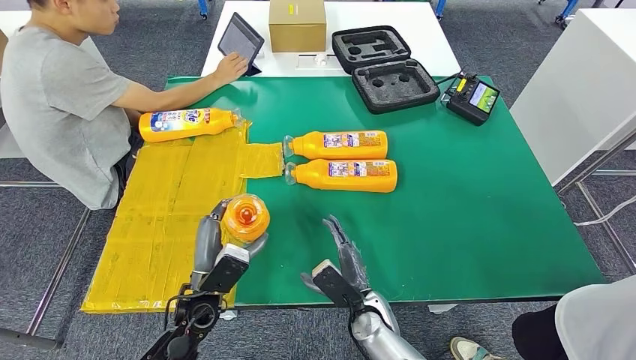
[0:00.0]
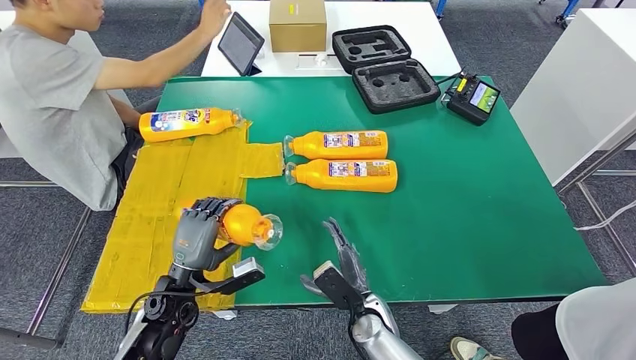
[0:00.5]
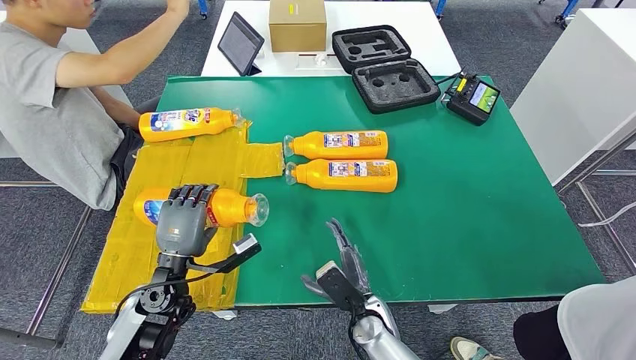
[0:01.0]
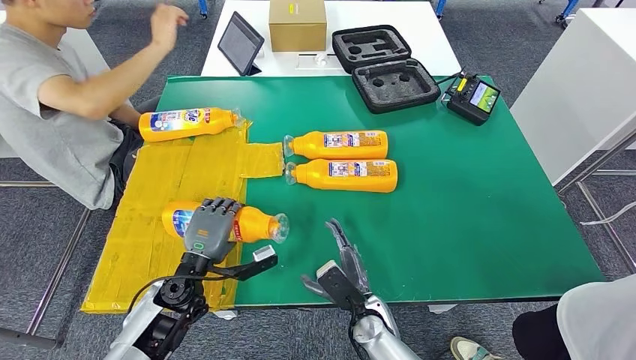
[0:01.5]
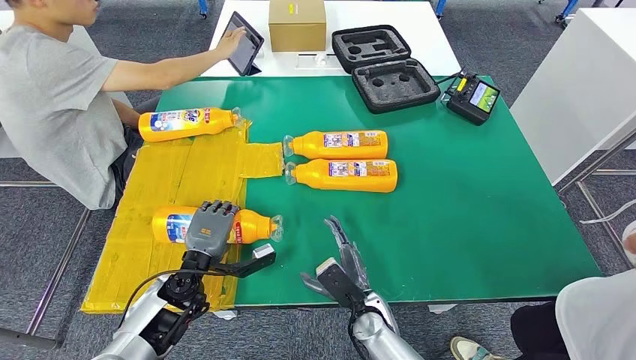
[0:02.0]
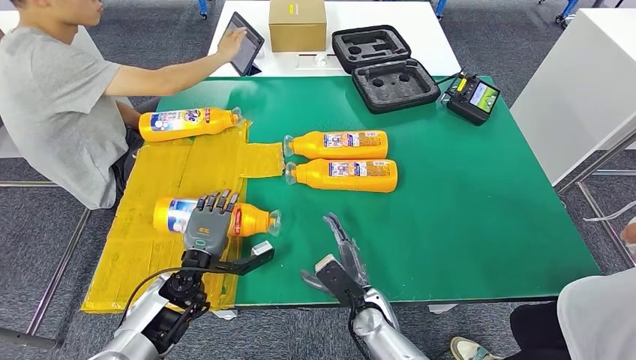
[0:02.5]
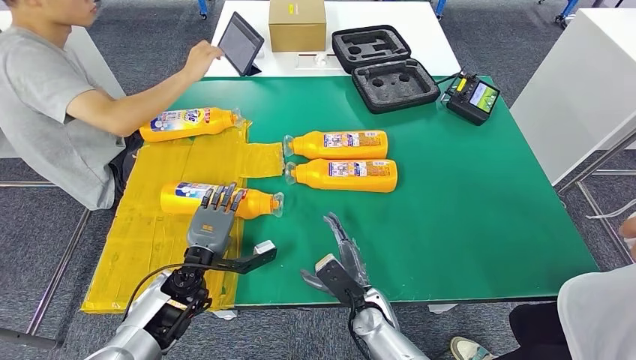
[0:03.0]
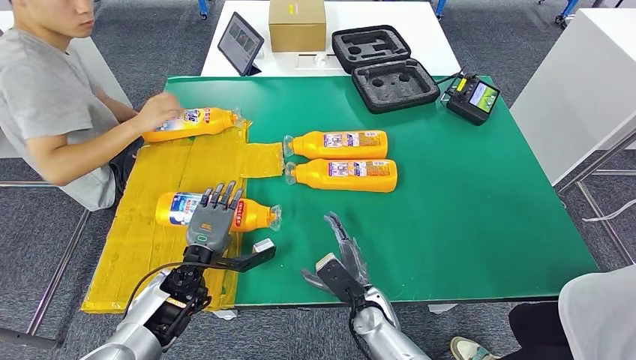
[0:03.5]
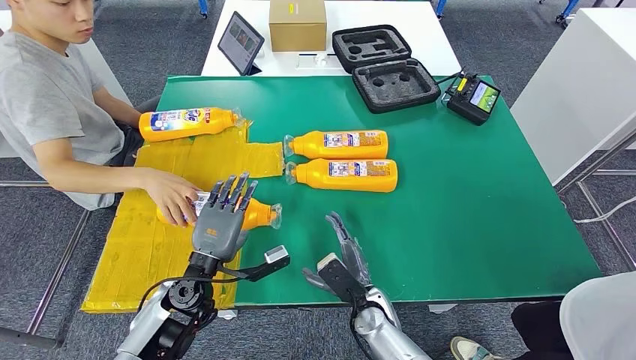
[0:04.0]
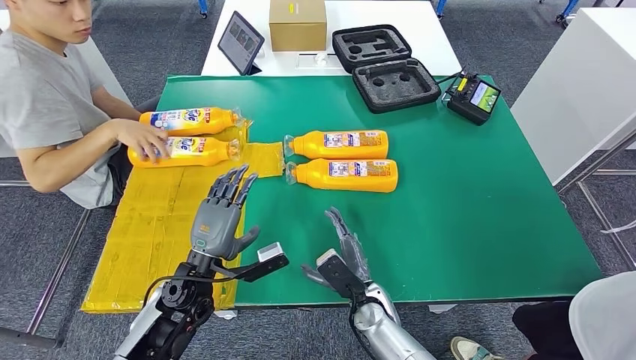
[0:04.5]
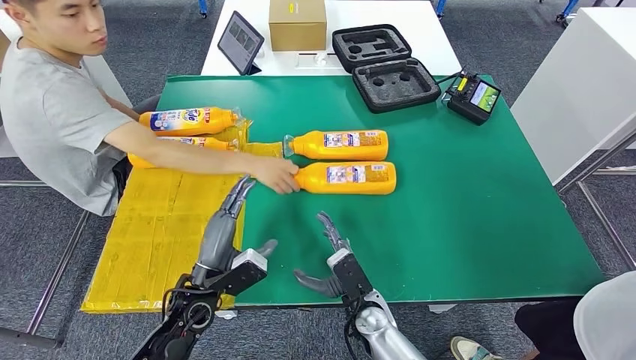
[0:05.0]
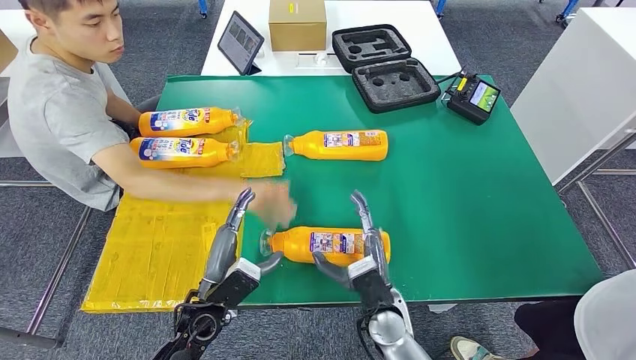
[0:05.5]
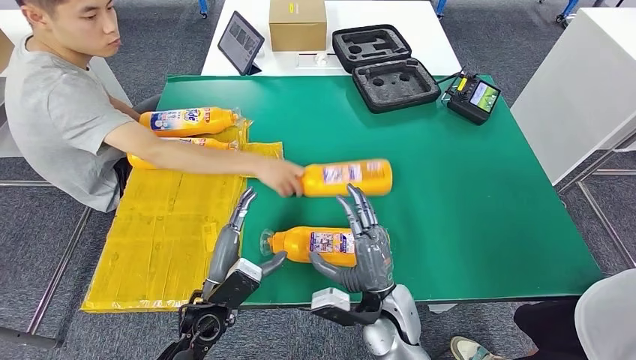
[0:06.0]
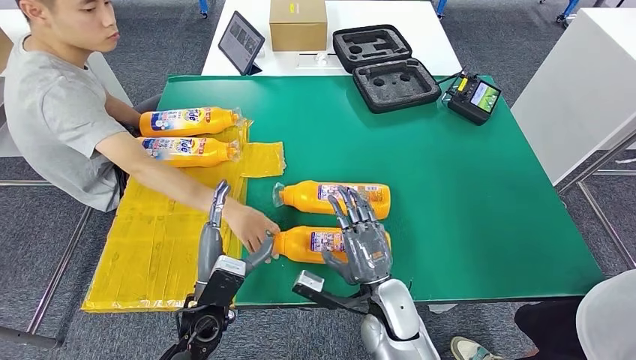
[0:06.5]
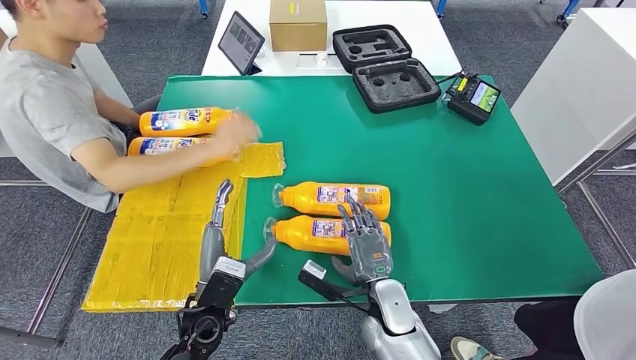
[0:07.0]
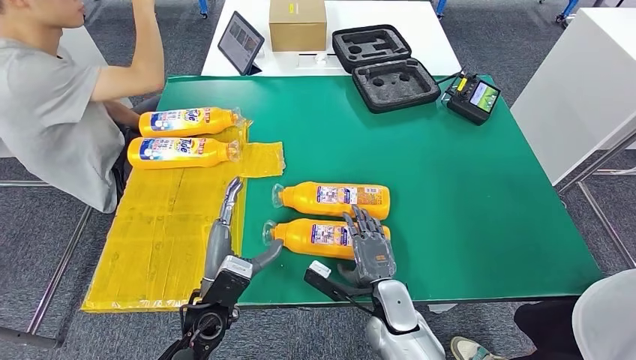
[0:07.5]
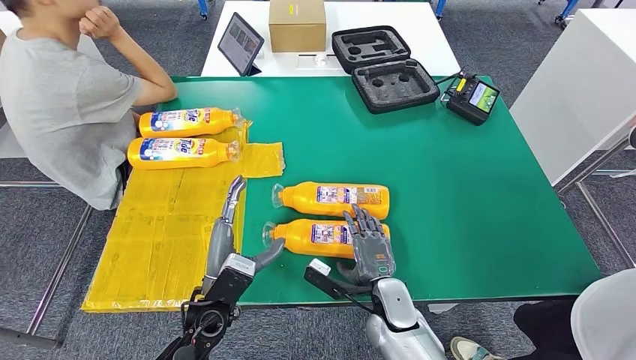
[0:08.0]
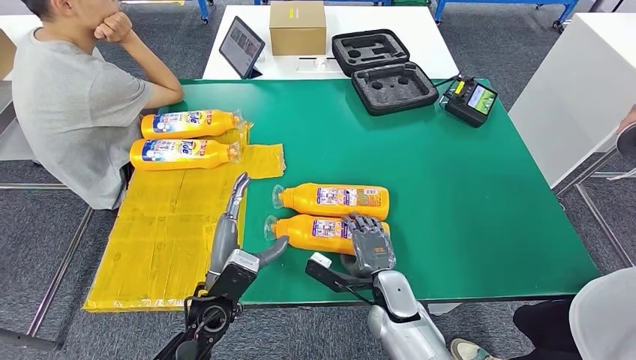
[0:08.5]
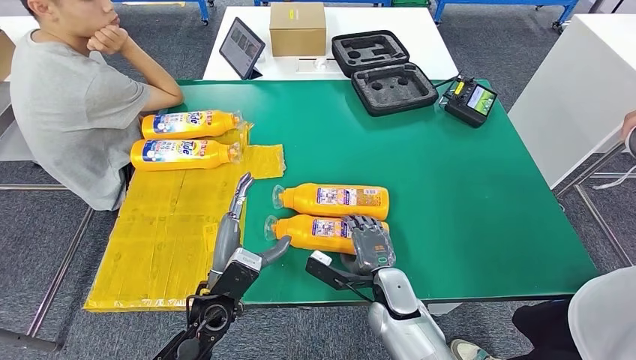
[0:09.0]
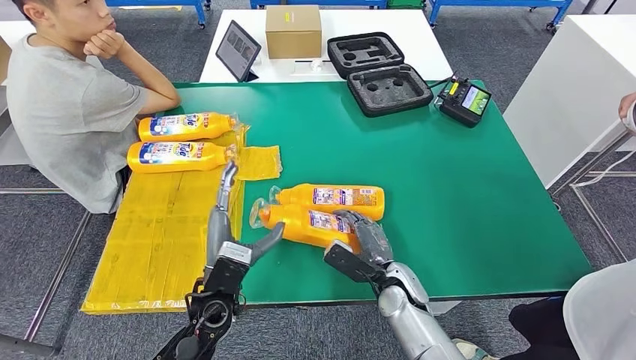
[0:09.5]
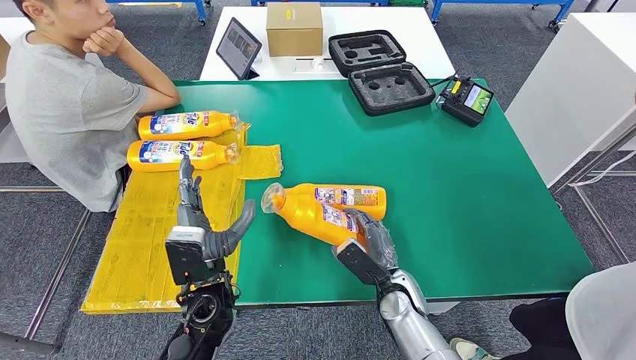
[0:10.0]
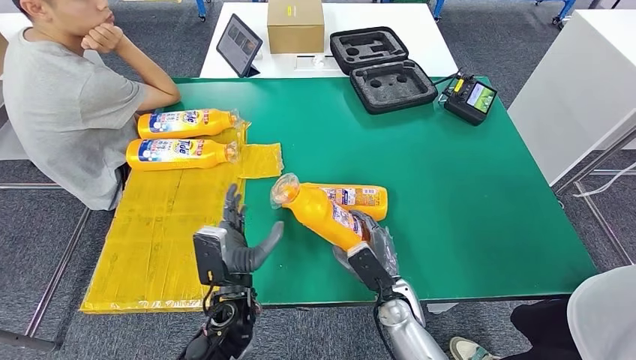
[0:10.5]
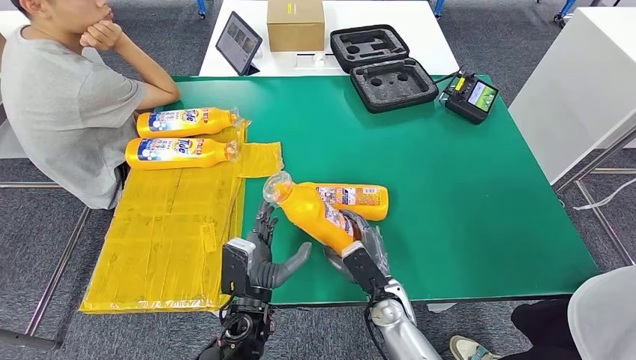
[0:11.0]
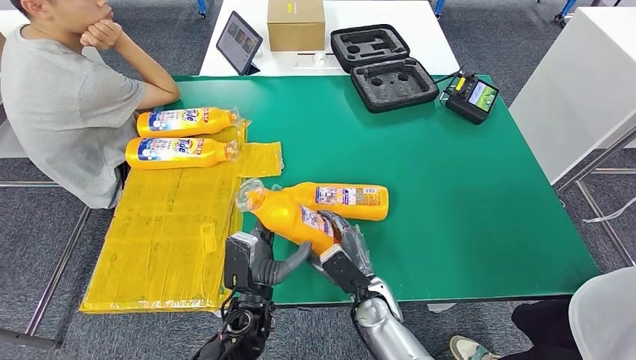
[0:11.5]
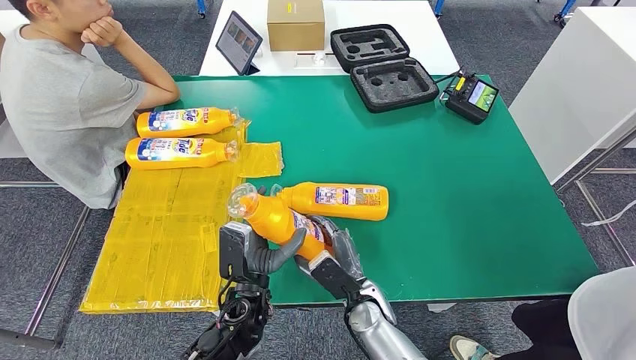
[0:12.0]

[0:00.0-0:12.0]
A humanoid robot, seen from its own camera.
Step, 0:00.0 to 0:05.5: Flip the bottle to face forward.
0:00.0 to 0:02.0: The left hand ends up about 5 cm from where it was.
0:02.0 to 0:04.0: The hands stay close to where they were, moving slightly.
0:06.0 to 0:08.0: The right hand heads downward, covering approximately 5 cm.

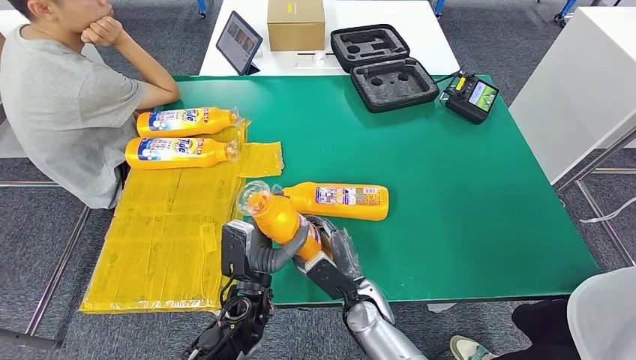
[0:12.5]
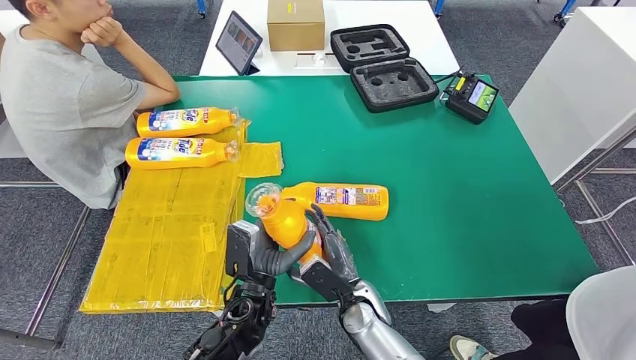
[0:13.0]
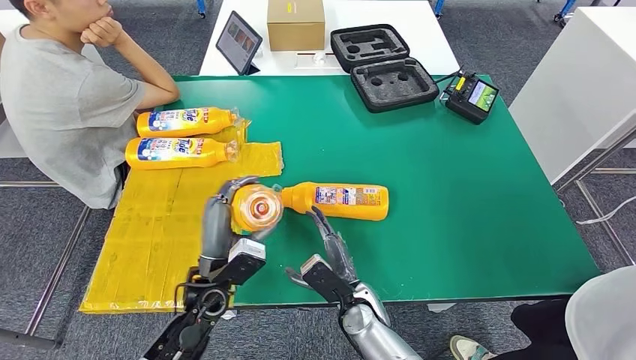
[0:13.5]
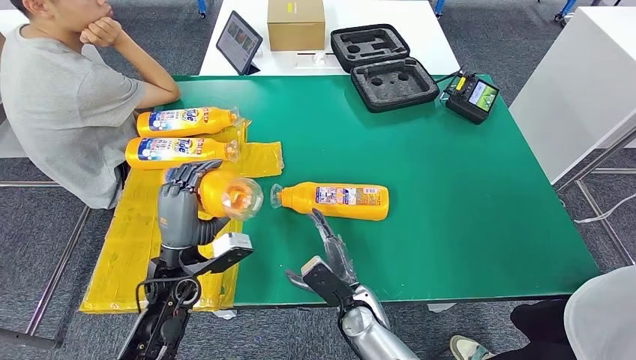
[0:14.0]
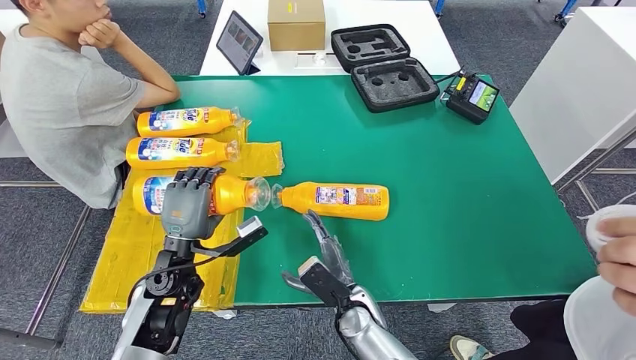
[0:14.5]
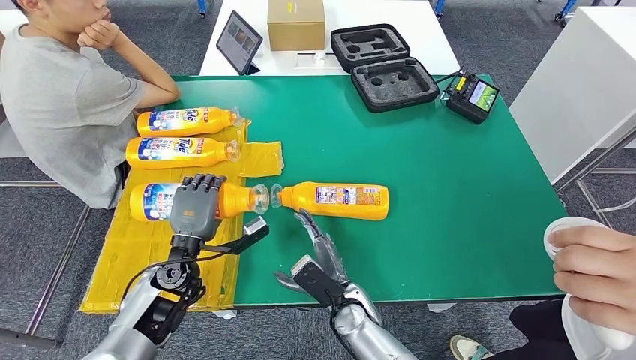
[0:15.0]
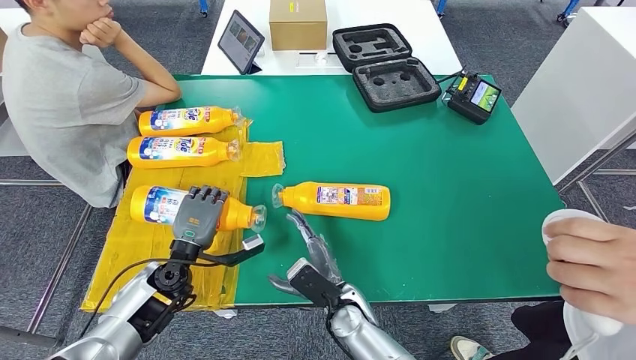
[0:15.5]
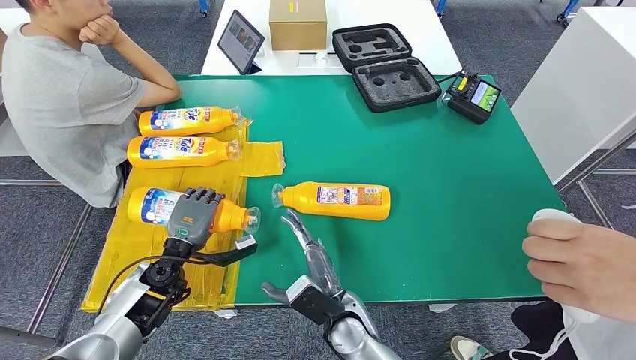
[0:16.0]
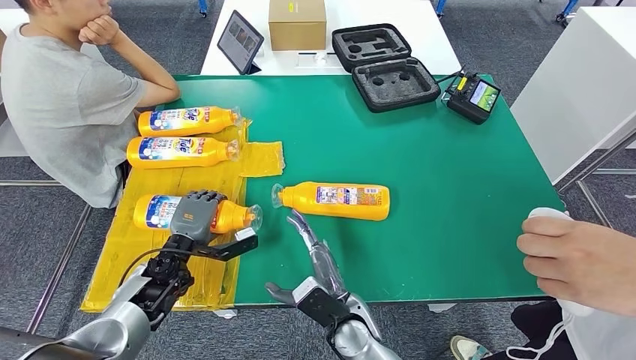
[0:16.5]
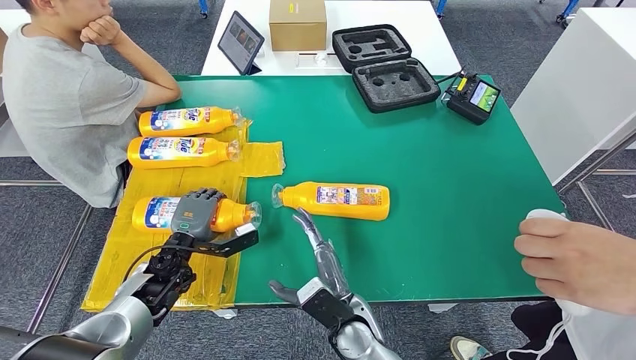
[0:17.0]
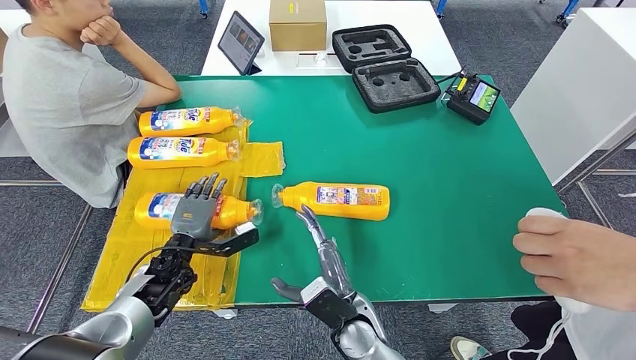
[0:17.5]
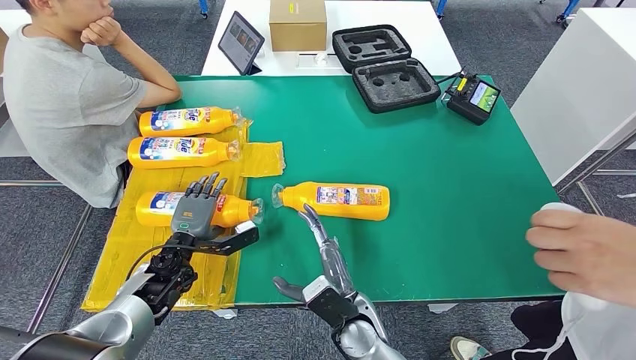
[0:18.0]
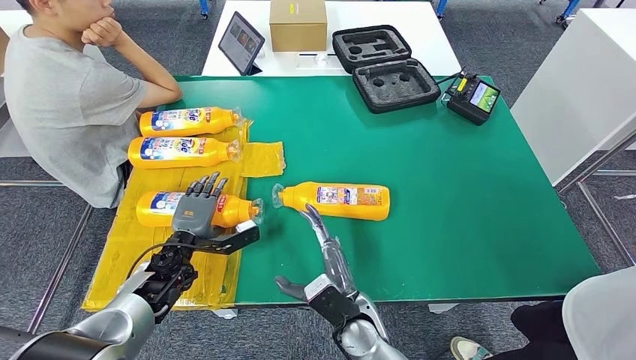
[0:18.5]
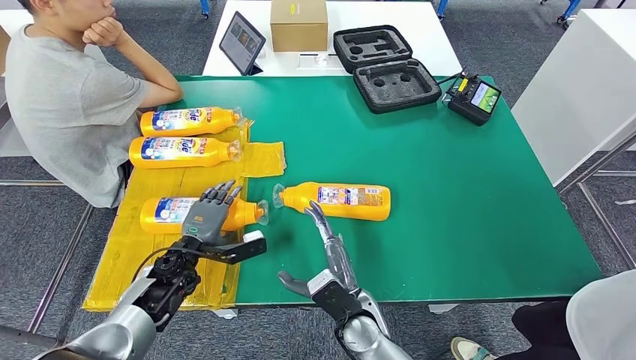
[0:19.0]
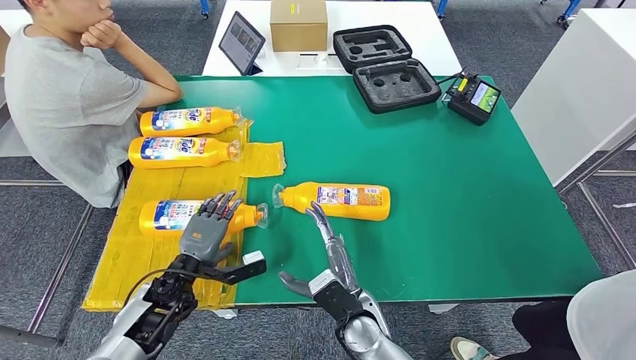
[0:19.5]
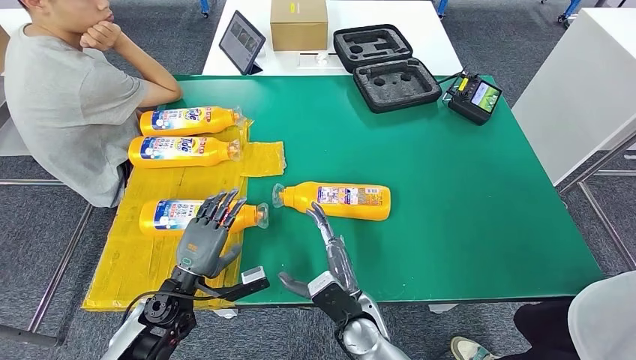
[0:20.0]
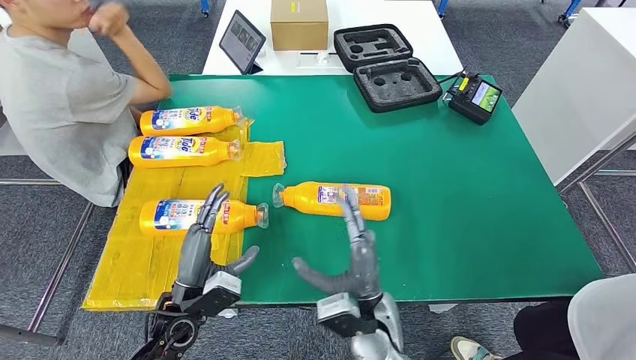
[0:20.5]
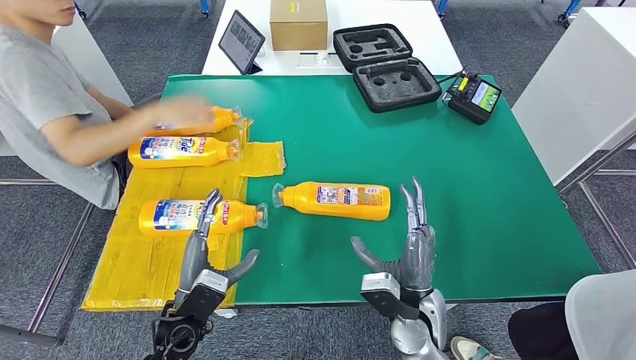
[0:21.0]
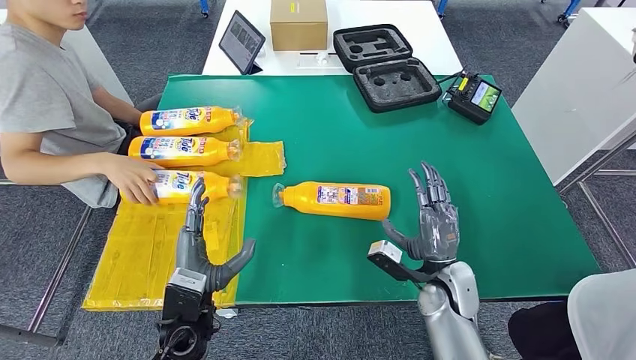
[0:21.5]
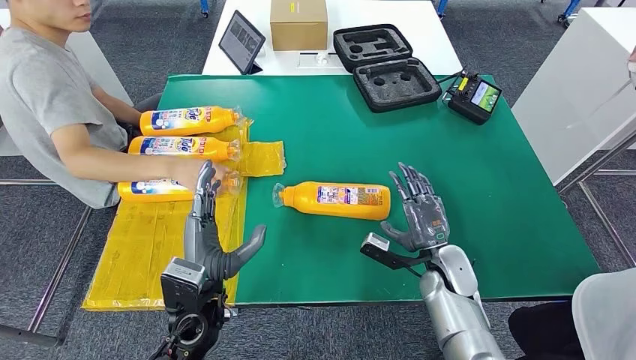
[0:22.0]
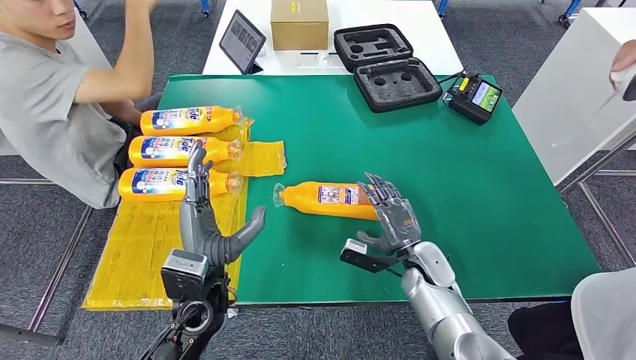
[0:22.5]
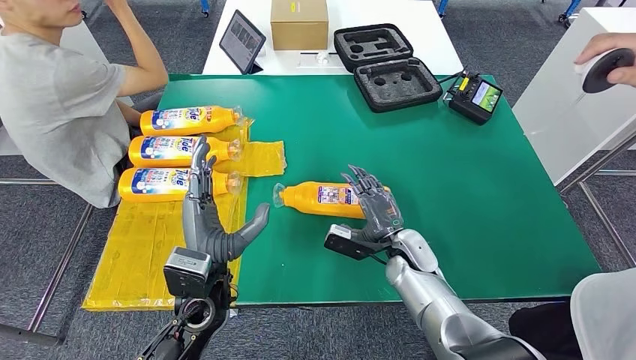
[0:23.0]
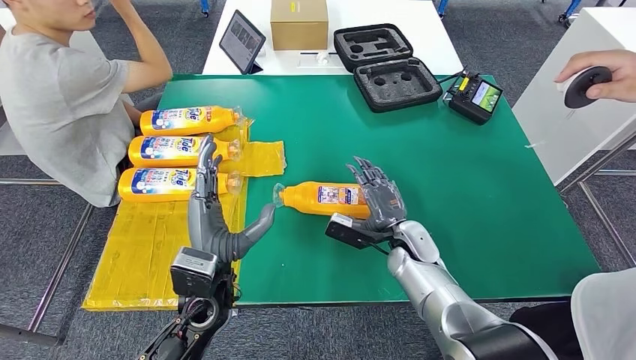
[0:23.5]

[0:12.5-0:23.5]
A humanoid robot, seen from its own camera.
Step, 0:12.5 to 0:14.5: Pick up the bottle from the table.
Step, 0:15.0 to 0:19.0: Flip the bottle to face forward.
0:12.5 to 0:14.5: The left hand shifts roughly 15 cm to the left.
0:14.5 to 0:16.0: The left hand is displaced downward by about 5 cm.
0:16.0 to 0:18.0: The hands move only a little.
0:18.0 to 0:20.0: The left hand moves backward, approximately 10 cm.
0:21.5 to 0:23.5: The right hand is displaced forward and to the left by some 10 cm. Meanwhile the left hand travels upward by approximately 5 cm.
